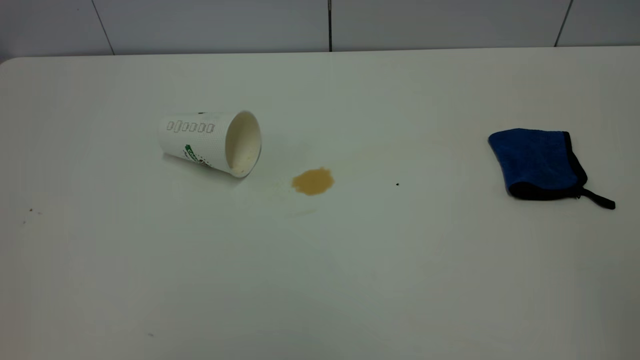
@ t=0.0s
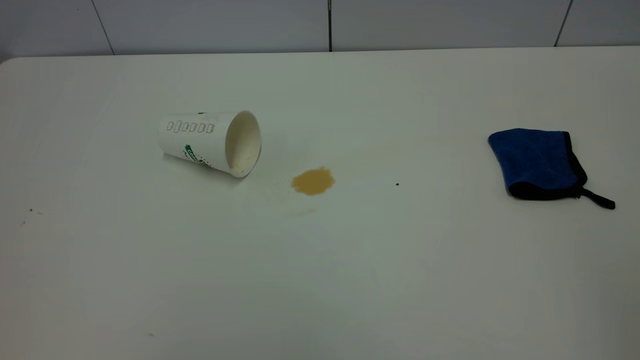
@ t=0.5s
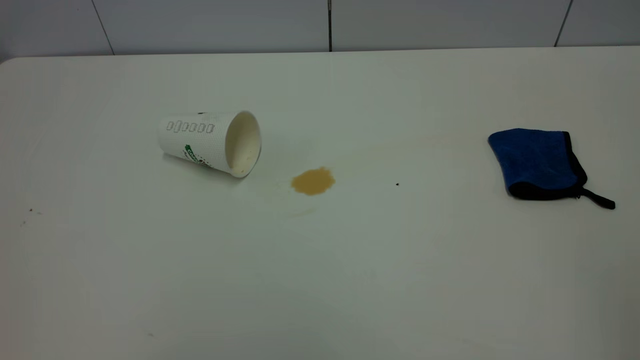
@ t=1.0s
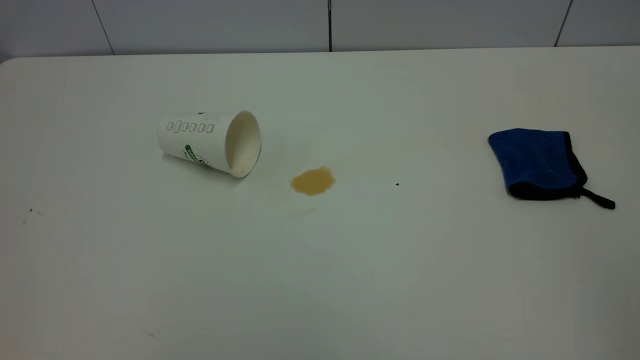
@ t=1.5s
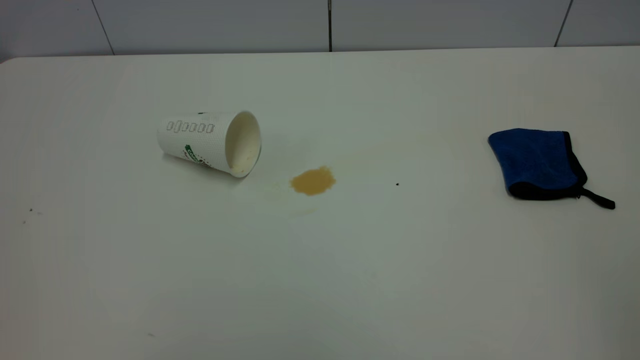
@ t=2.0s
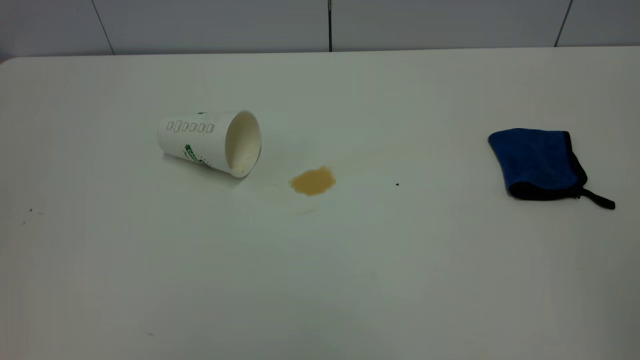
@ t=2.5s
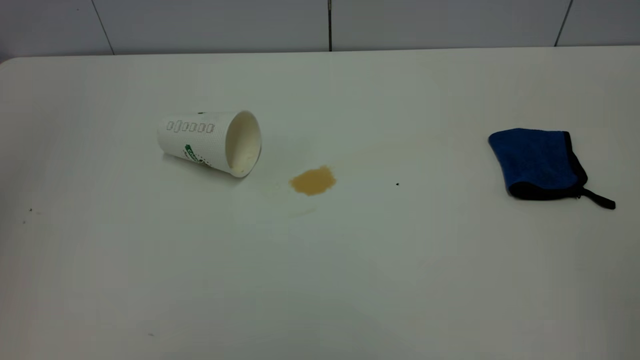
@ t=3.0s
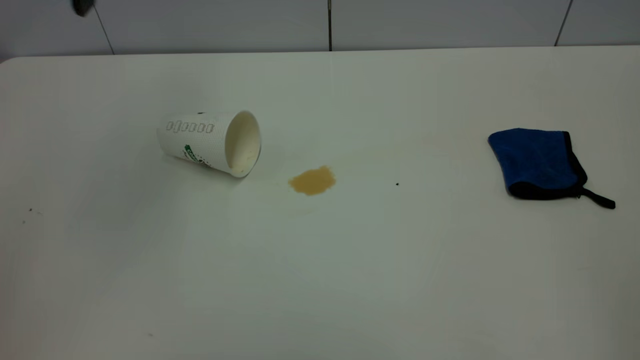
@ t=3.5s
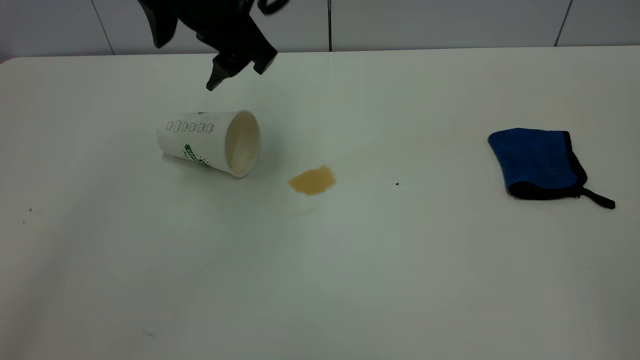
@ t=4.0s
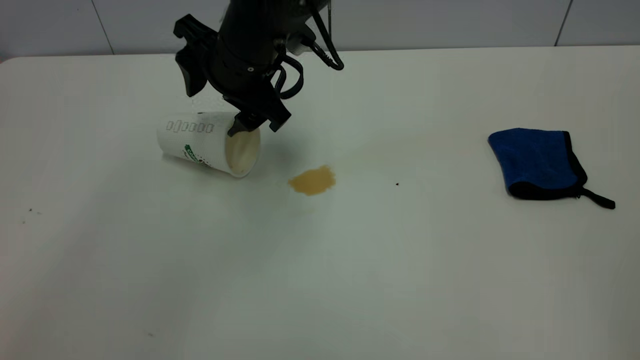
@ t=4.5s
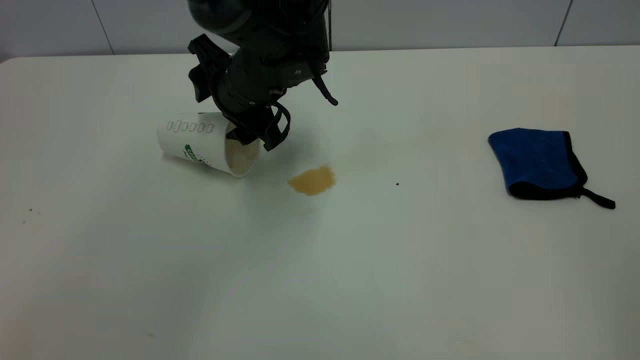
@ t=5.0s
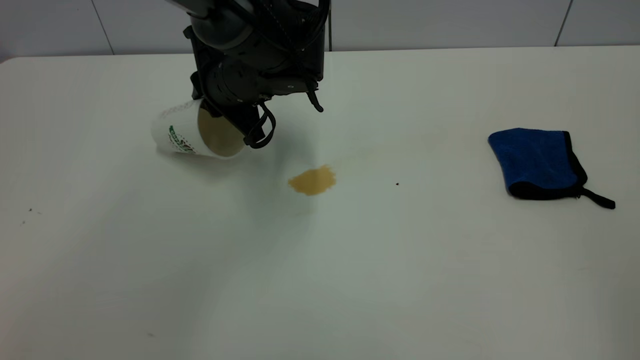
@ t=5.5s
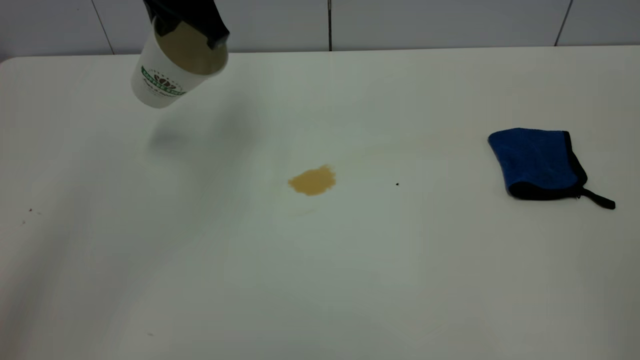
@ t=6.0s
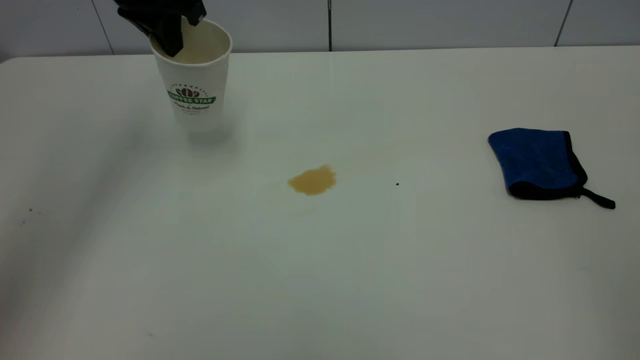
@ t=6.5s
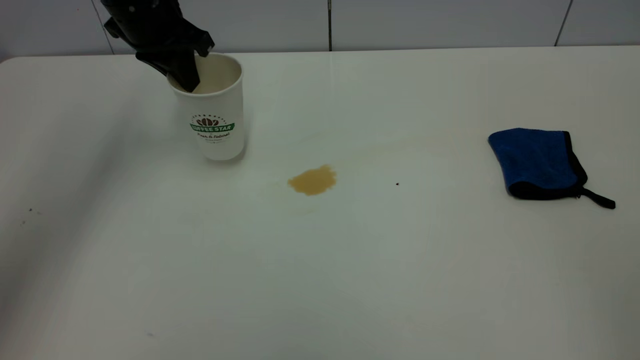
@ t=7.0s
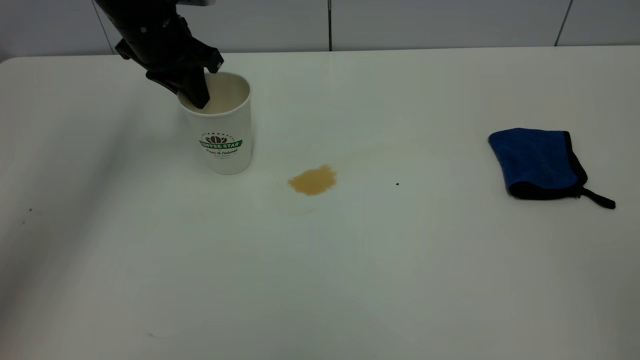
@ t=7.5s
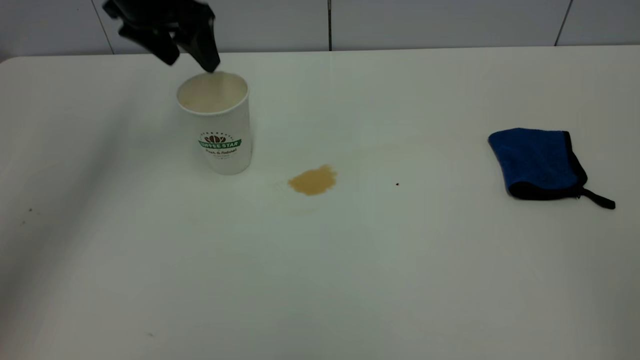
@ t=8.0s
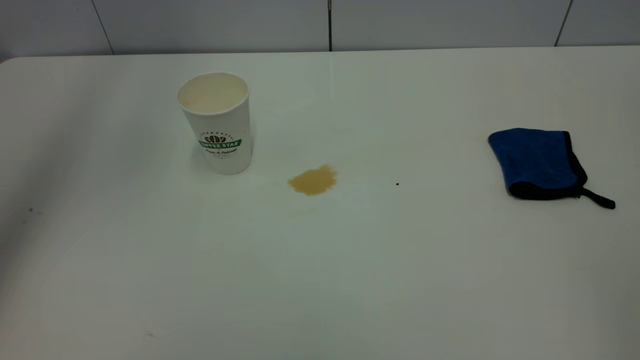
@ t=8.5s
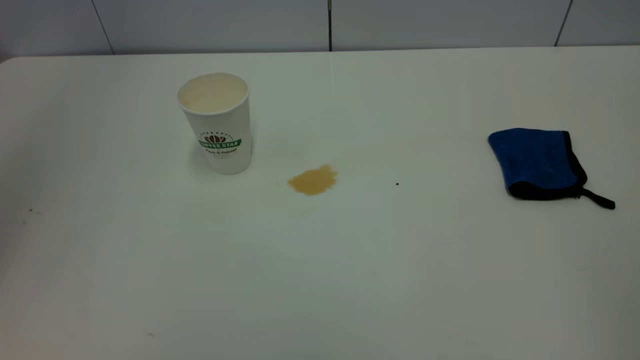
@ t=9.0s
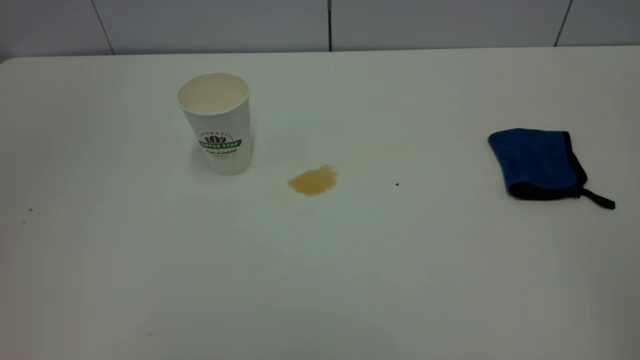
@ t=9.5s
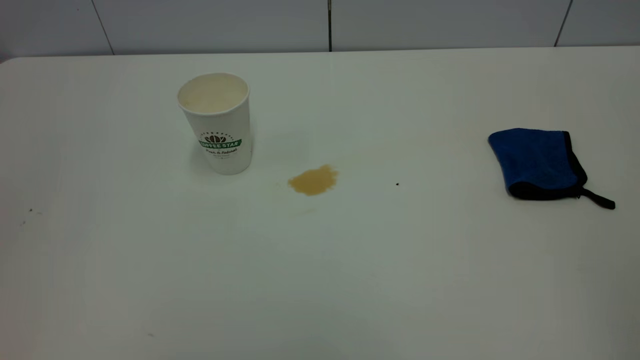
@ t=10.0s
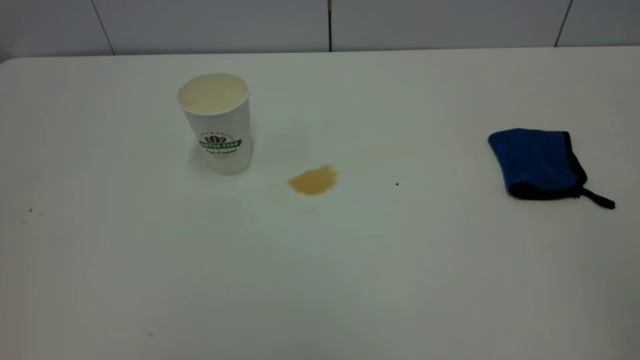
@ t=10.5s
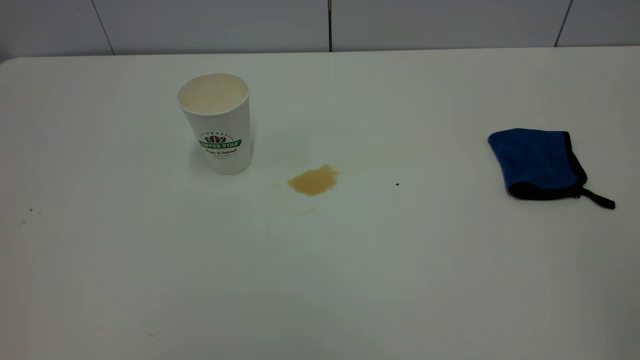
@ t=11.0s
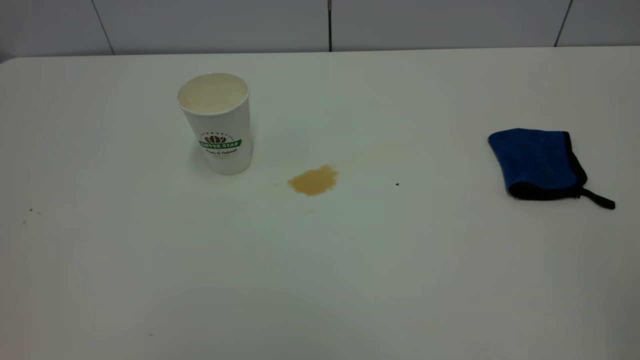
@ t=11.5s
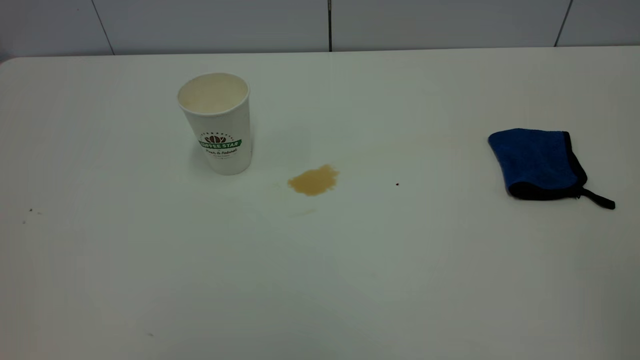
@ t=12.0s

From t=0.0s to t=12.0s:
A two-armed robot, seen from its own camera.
Task of the whole recording: the left gripper pick up the fallen cup and place it upright, the right gripper grasp the blue rag and wipe the tea stain on the table, the right gripper put the blue rag back in its original position.
Step, from t=0.0s to t=7.5s: Stand the paper cup upright.
From t=0.0s to t=2.0s: Both grippers stay put.
From t=2.0s to t=4.0s: The left gripper shifts about 50 cm forward and to the right.
From t=4.0s to t=6.0s: The left gripper heads to the left and forward, covering about 5 cm, travels downward and back again, roughly 10 cm each way, and closes up.
From t=6.0s to t=8.0s: The left gripper is displaced to the left by some 5 cm, and opens its fingers.
From t=8.0s to t=10.0s: The left gripper shifts roughly 40 cm backward and upward.

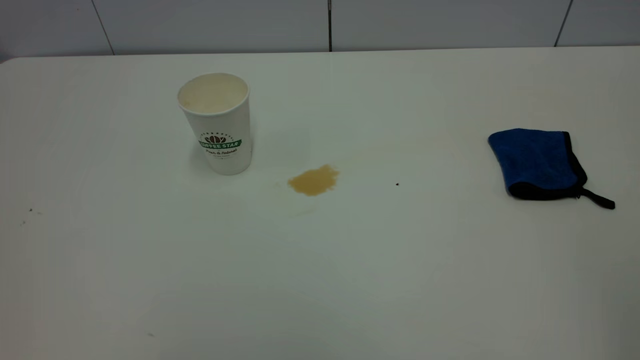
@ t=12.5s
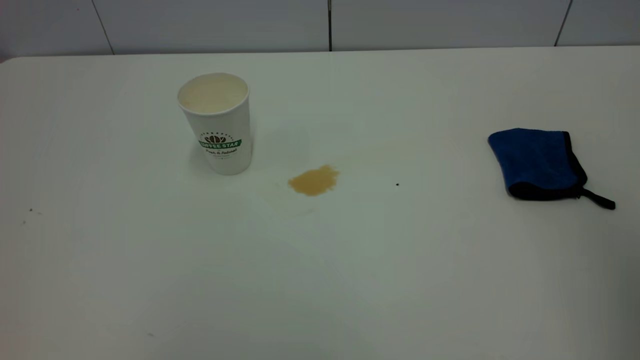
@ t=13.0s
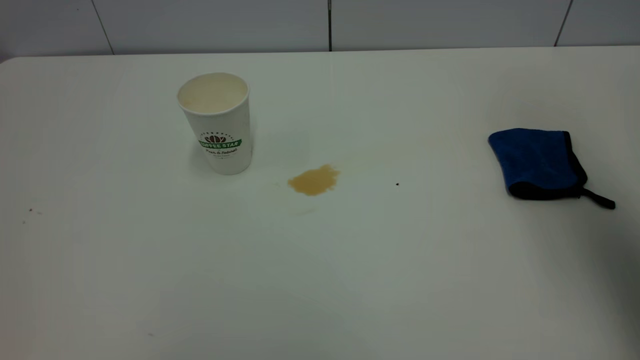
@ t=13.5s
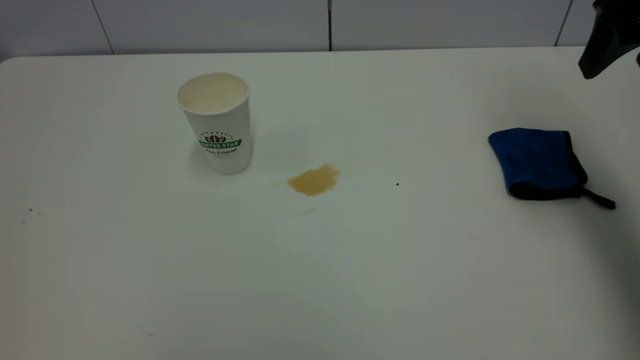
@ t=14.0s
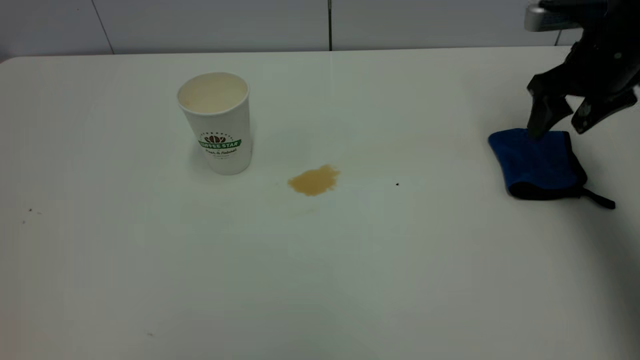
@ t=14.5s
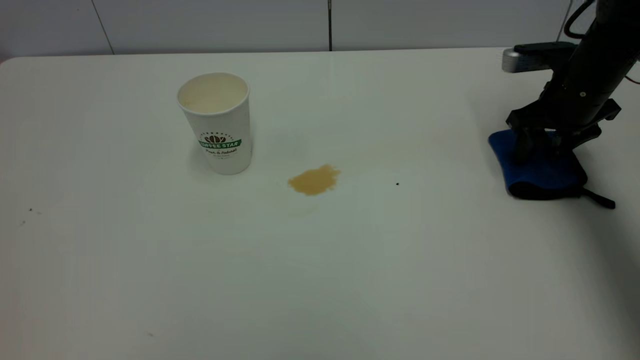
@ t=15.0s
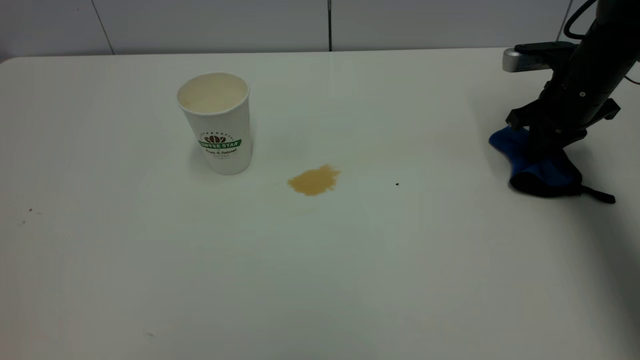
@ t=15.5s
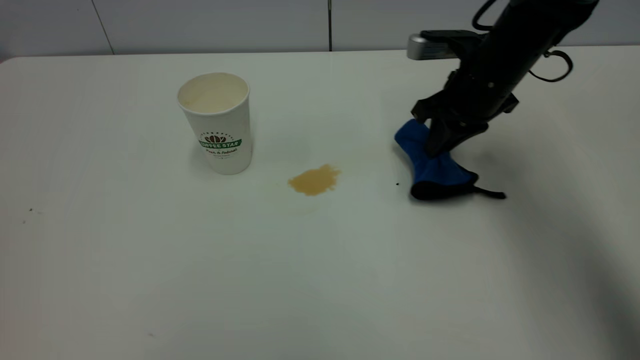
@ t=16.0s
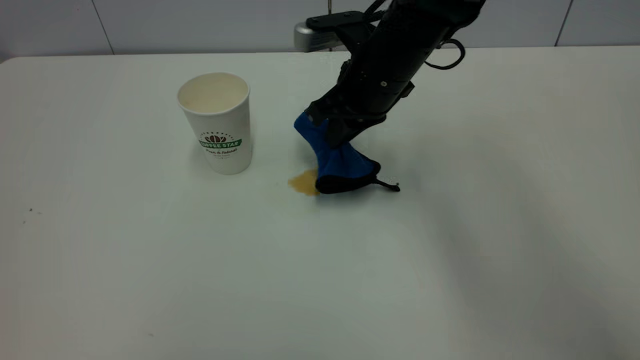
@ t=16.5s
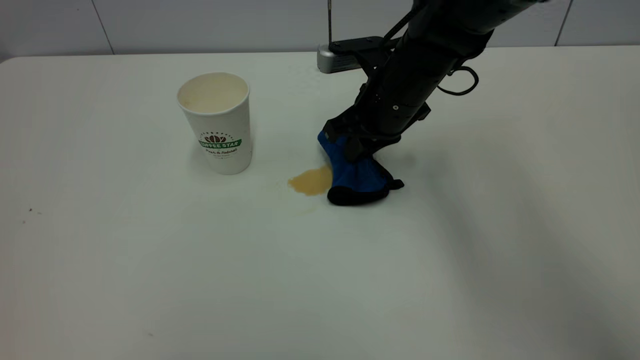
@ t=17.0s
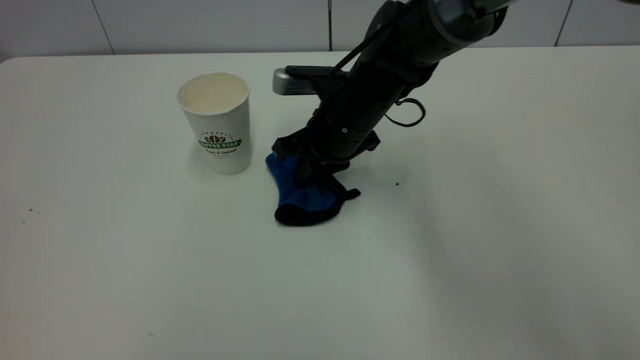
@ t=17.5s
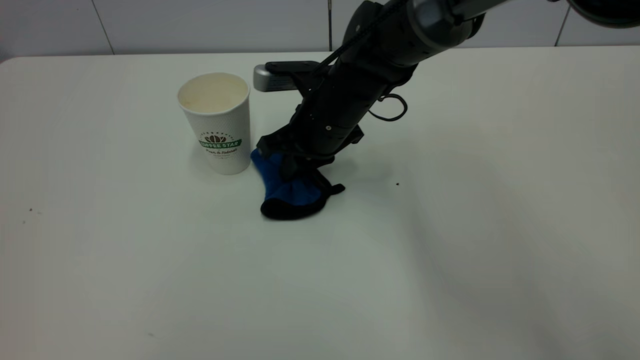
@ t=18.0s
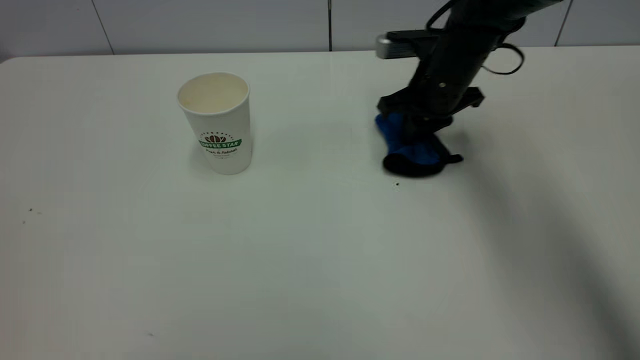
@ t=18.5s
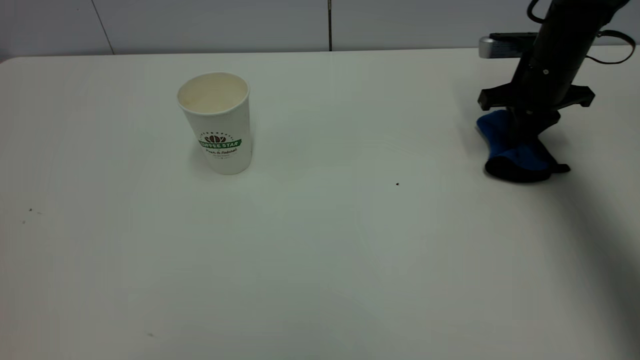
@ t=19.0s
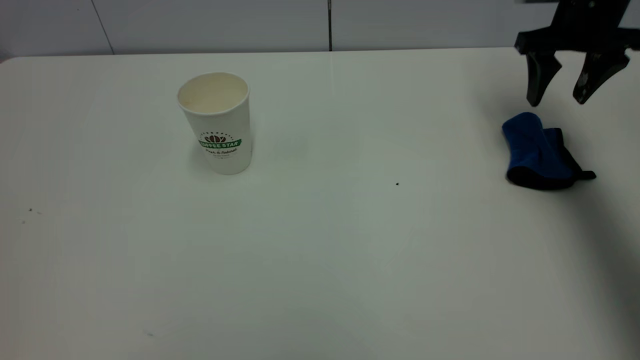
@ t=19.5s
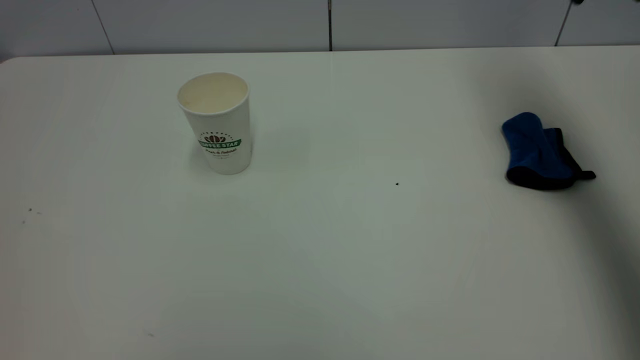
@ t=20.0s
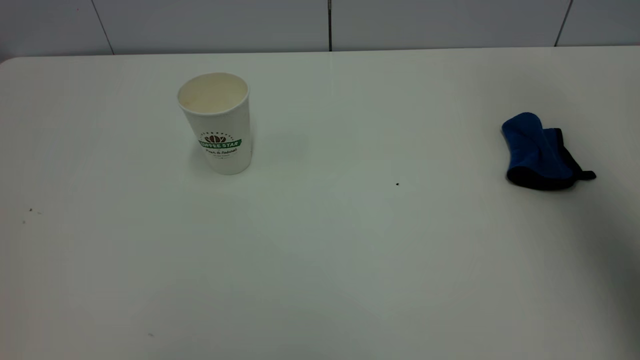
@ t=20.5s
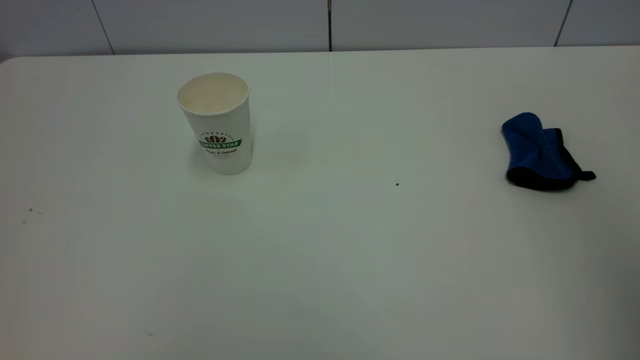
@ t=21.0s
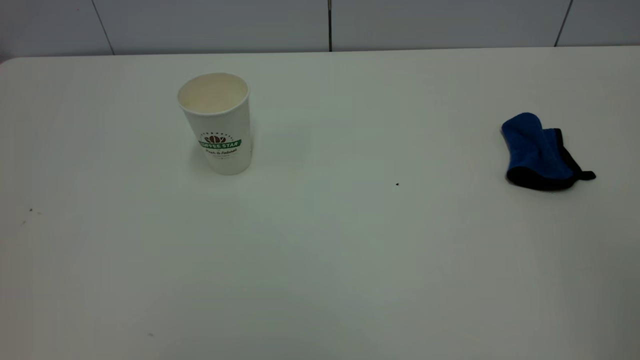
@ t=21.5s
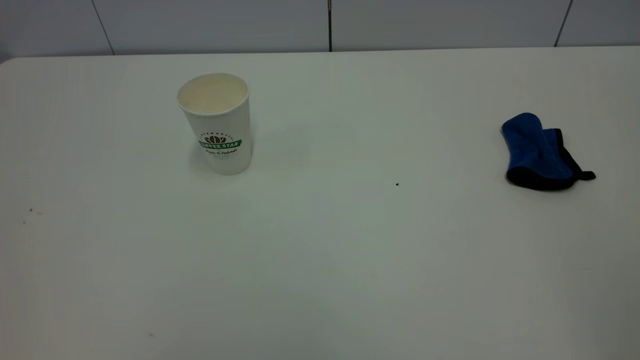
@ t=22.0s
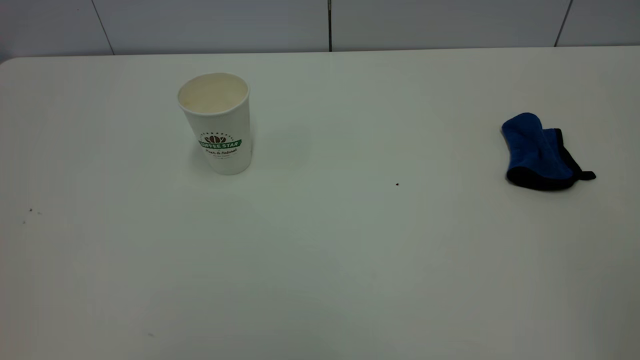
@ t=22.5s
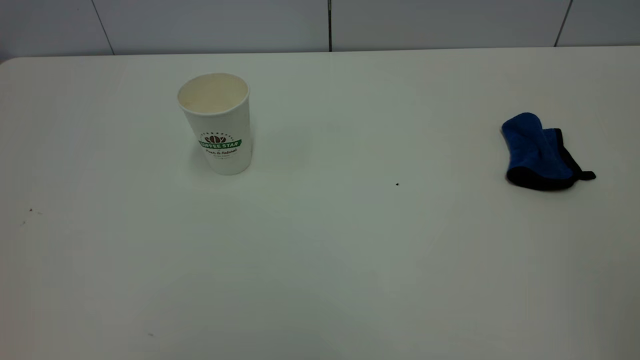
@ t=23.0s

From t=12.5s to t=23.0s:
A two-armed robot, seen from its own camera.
Task of the whole recording: the left gripper pick up the fallen cup and place it upright, the right gripper grasp the blue rag and wipe the tea stain on the table, the right gripper put the blue rag back in its original position.
Step, from t=12.5s to t=19.5s: Wipe the stains off the table with a rag.
From t=12.5s to t=14.5s: The right gripper travels forward and downward by about 50 cm, and opens its fingers.
From t=14.5s to t=16.5s: The right gripper is displaced to the left by about 25 cm, and closes its fingers.
From t=16.5s to t=19.0s: The right gripper travels to the right by roughly 20 cm.
From t=19.0s to t=21.0s: The right gripper moves backward and upward, roughly 50 cm, and opens.
